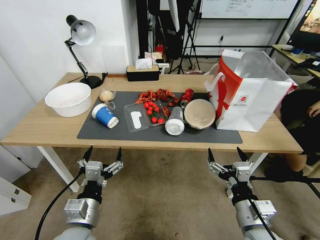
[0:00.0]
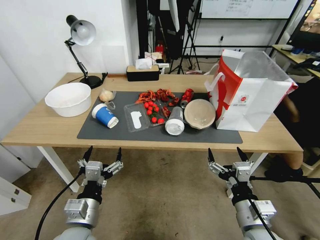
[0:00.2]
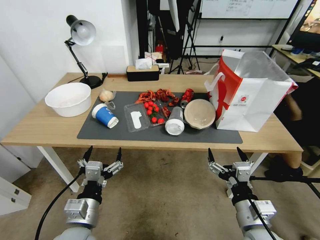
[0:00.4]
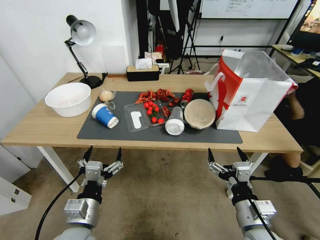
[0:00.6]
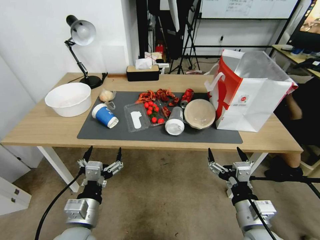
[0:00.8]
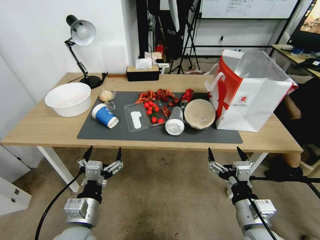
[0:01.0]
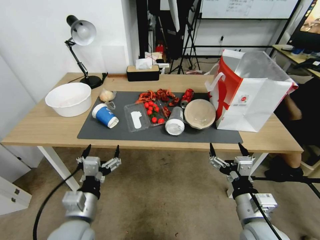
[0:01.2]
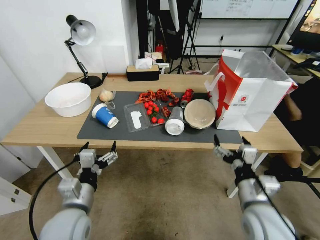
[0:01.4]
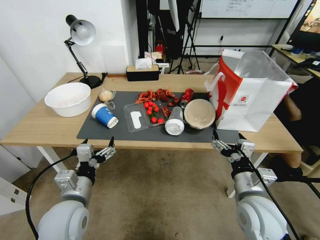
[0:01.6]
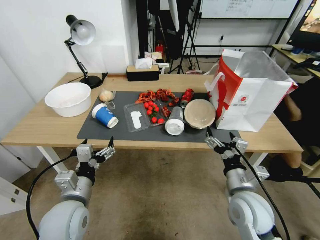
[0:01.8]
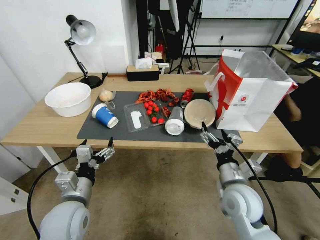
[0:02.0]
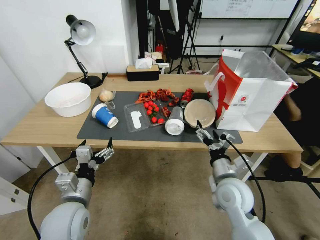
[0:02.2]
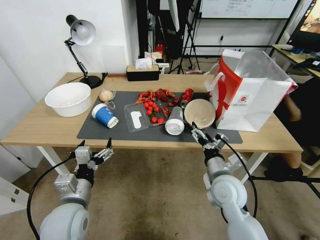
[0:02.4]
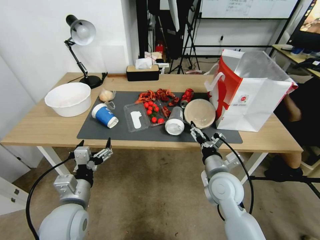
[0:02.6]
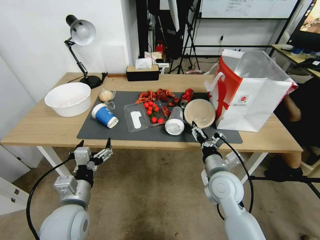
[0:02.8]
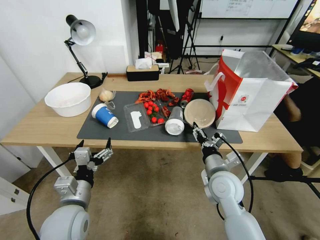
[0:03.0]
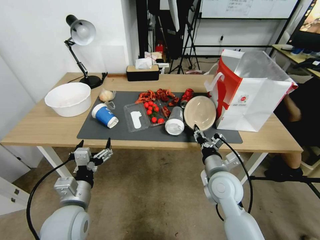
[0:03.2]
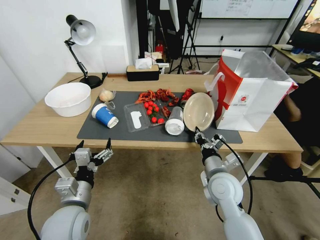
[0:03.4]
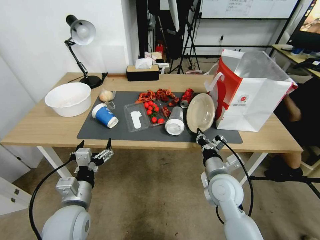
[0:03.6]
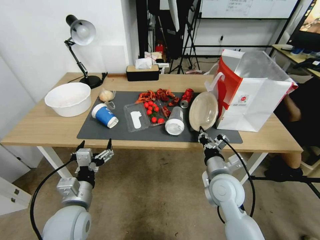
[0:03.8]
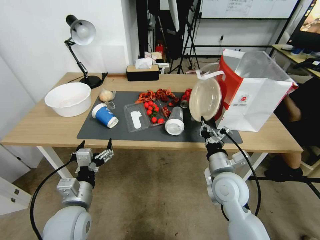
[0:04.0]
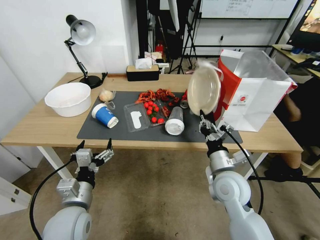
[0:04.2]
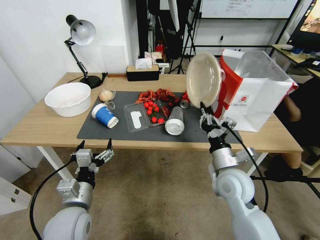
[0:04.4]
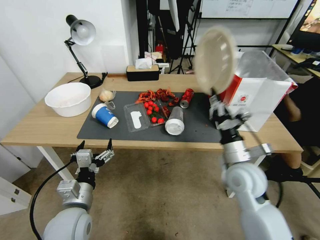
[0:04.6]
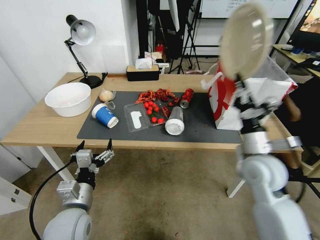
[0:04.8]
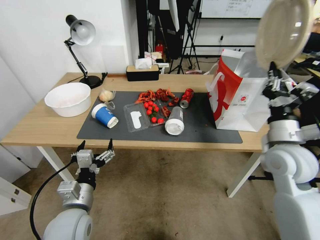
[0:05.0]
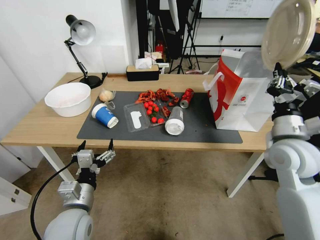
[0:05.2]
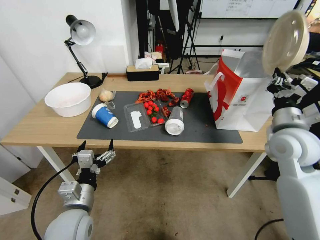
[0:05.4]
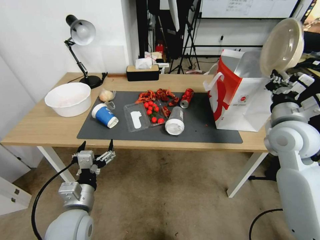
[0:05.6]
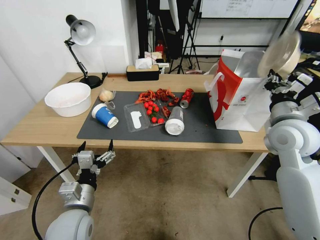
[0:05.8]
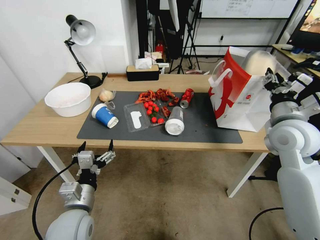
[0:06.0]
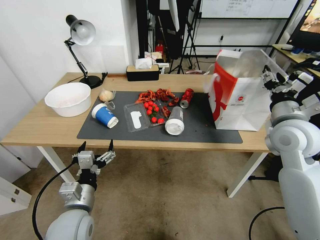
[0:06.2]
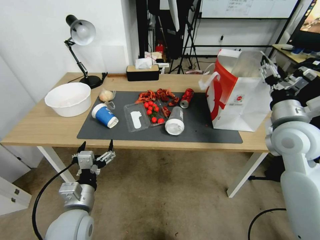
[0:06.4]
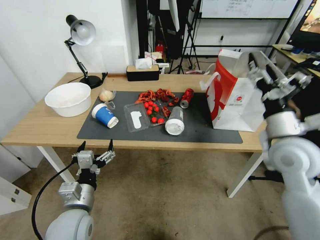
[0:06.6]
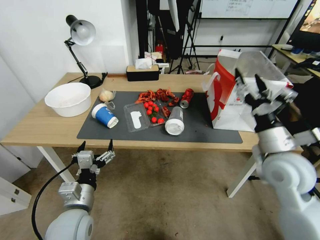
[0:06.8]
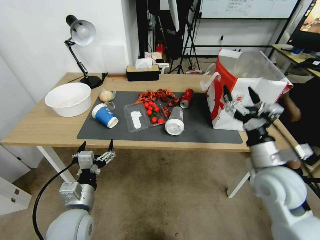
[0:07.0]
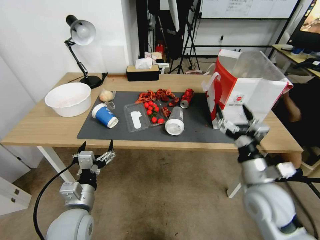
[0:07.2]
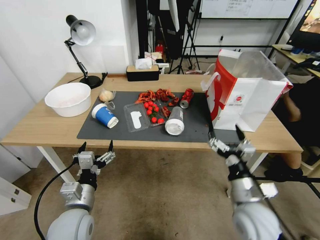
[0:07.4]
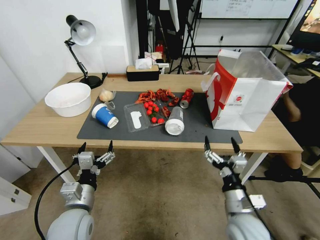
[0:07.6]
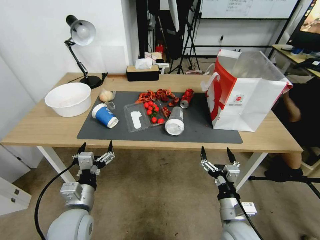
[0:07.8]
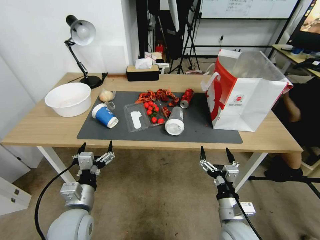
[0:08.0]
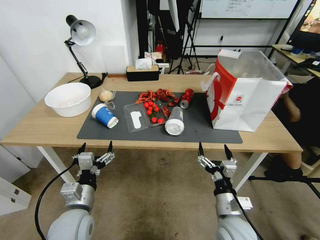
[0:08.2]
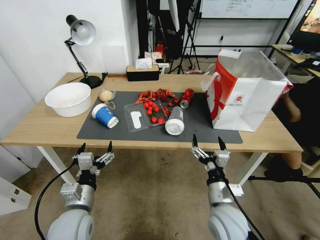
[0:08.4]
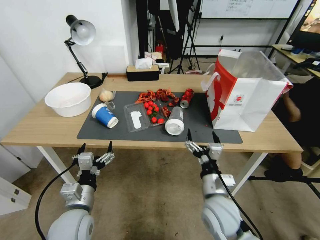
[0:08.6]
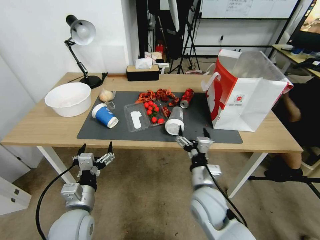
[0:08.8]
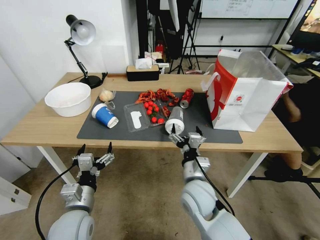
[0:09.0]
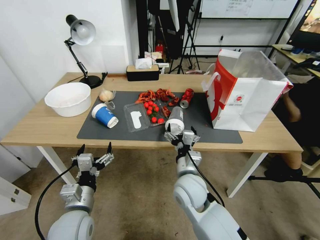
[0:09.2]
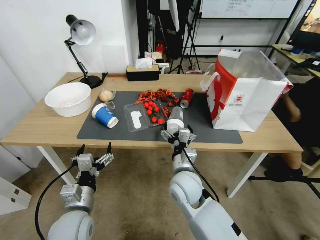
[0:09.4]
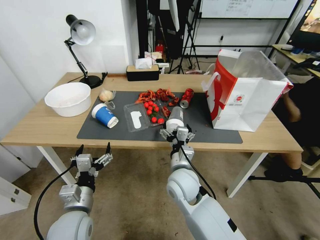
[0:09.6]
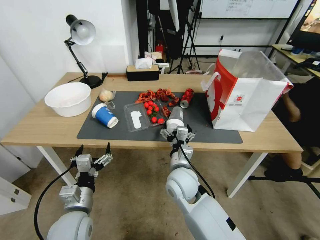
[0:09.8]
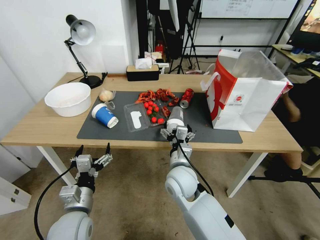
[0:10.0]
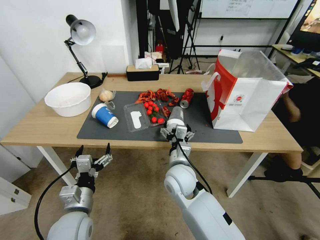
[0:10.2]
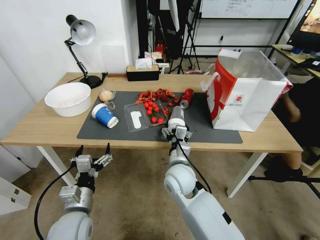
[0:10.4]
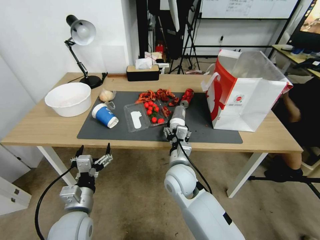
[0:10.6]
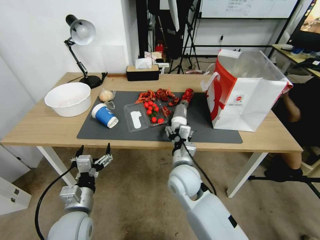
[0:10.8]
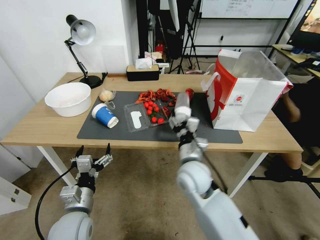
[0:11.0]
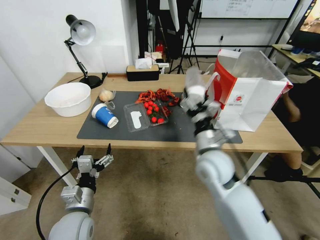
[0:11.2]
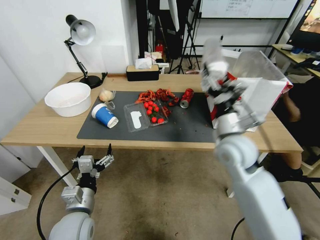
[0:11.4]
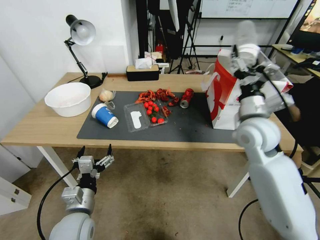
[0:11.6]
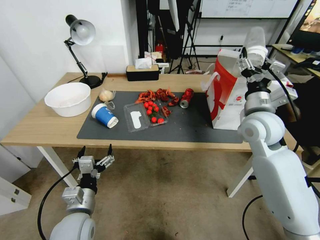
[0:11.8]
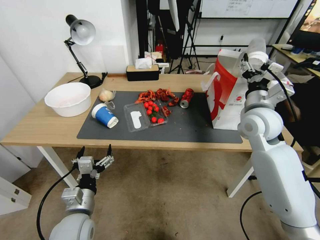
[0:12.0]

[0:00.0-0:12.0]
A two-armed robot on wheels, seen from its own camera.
0:01.6 to 0:03.0: The right gripper moves forward, roughly 10 cm, and closes its fingers.
0:03.0 to 0:04.4: The right gripper closes up.
0:04.4 to 0:06.0: The right gripper goes about 20 cm upward, to the right and forward.
0:06.0 to 0:07.6: The right gripper goes some 20 cm downward, backward and to the left, and opens.
0:07.6 to 0:09.0: The right gripper goes approximately 15 cm to the left.
0:09.0 to 0:10.4: The right gripper goes approximately 5 cm forward.
0:10.4 to 0:12.0: The right gripper shifts some 30 cm to the right, upward and forward.

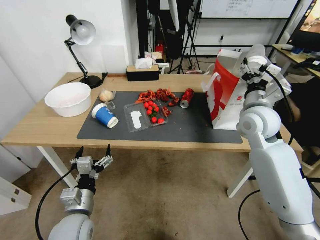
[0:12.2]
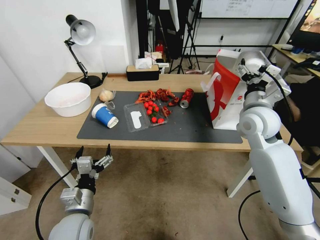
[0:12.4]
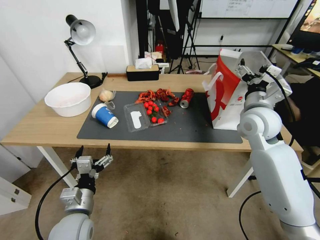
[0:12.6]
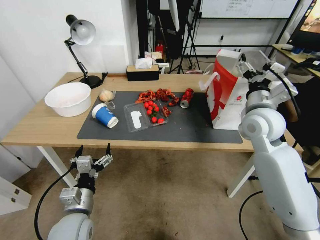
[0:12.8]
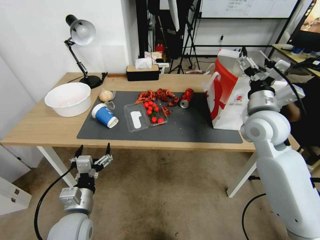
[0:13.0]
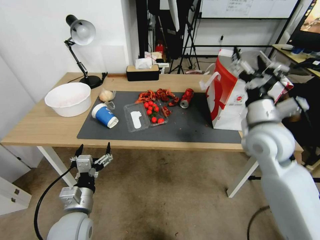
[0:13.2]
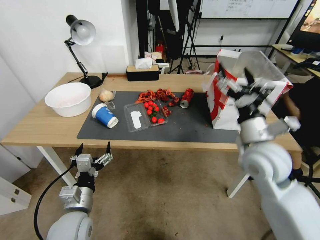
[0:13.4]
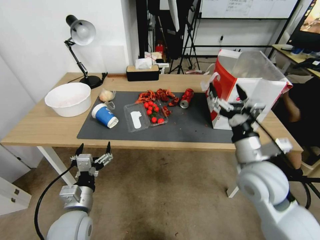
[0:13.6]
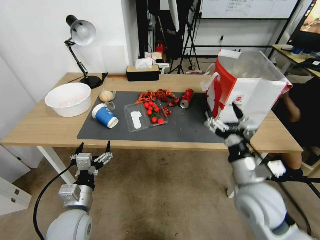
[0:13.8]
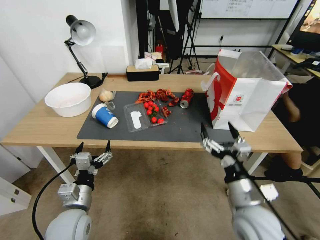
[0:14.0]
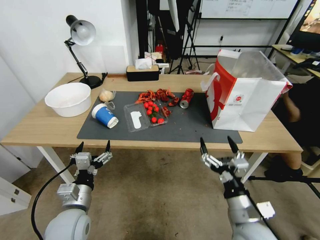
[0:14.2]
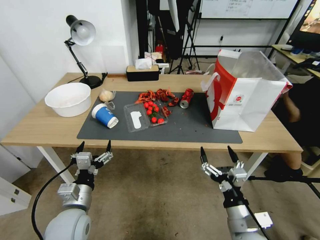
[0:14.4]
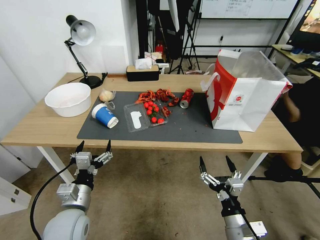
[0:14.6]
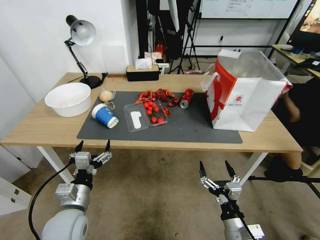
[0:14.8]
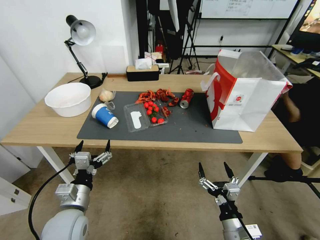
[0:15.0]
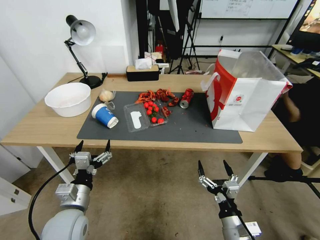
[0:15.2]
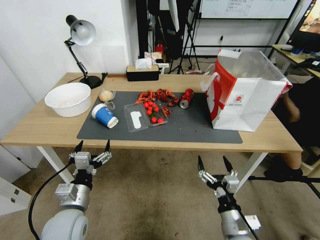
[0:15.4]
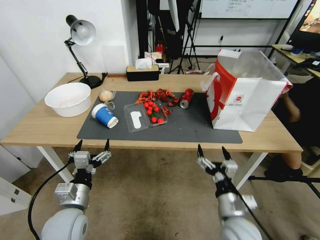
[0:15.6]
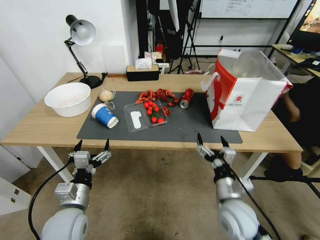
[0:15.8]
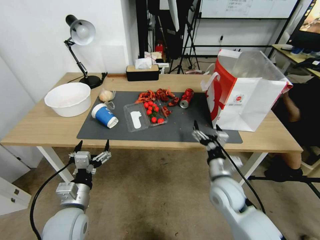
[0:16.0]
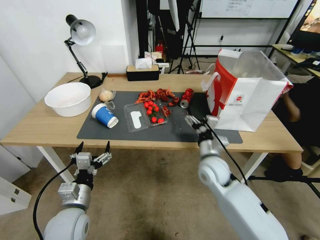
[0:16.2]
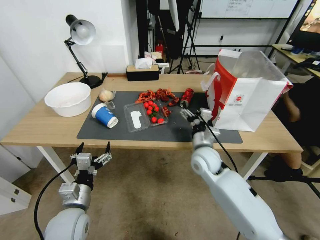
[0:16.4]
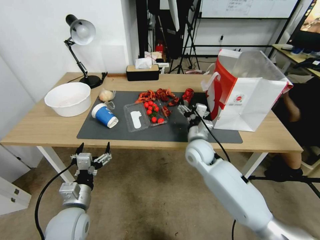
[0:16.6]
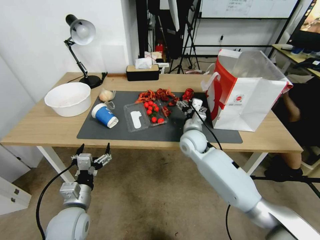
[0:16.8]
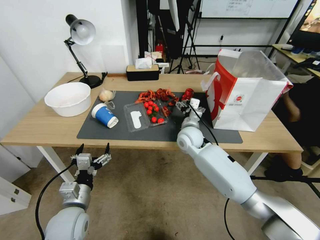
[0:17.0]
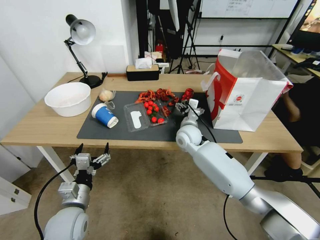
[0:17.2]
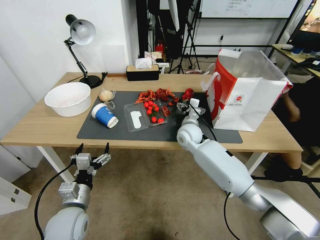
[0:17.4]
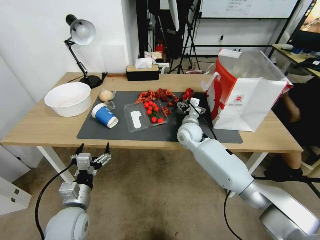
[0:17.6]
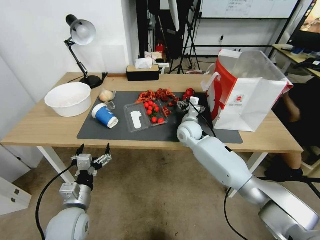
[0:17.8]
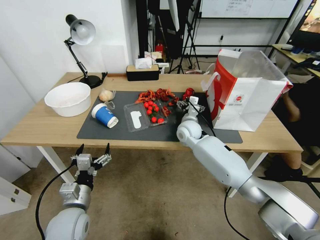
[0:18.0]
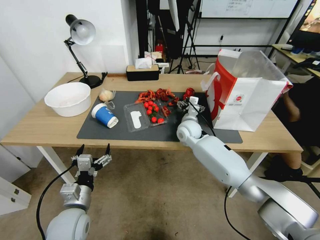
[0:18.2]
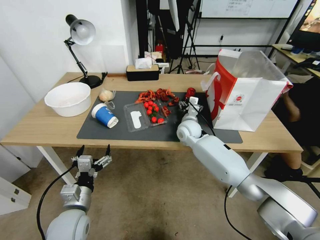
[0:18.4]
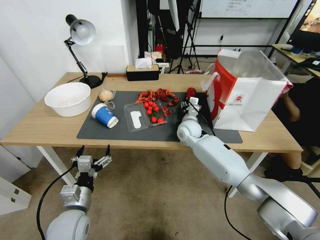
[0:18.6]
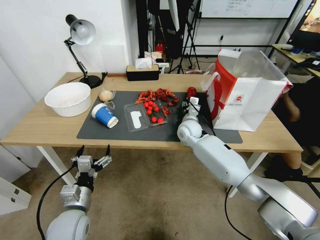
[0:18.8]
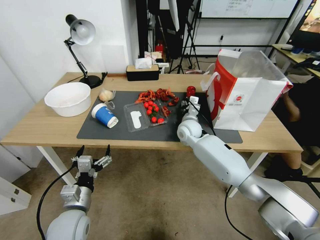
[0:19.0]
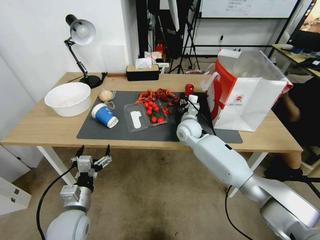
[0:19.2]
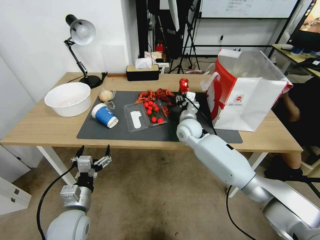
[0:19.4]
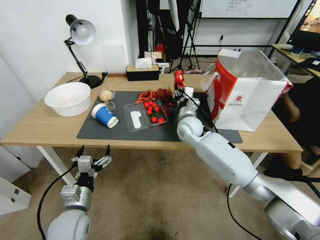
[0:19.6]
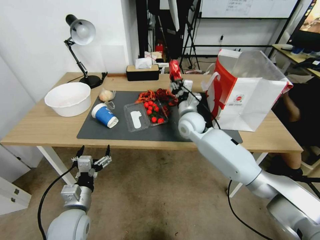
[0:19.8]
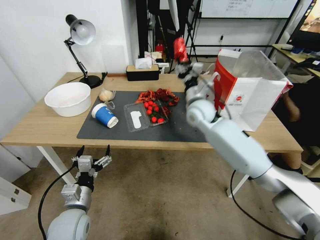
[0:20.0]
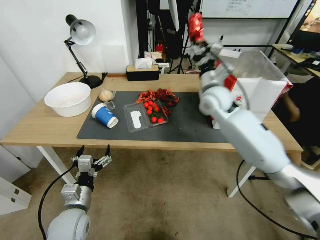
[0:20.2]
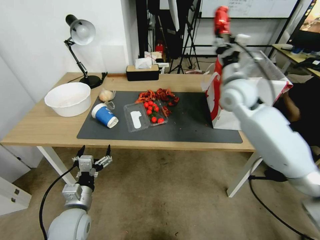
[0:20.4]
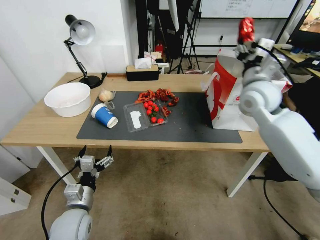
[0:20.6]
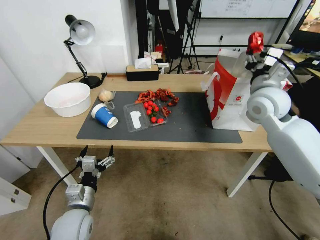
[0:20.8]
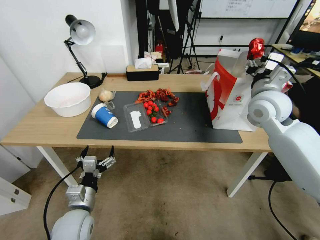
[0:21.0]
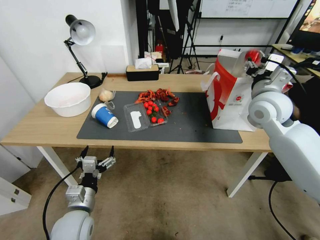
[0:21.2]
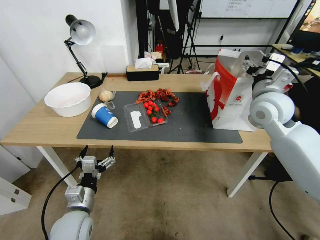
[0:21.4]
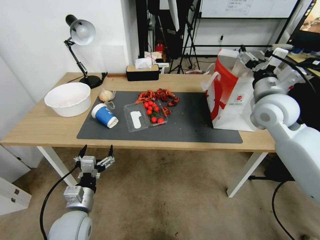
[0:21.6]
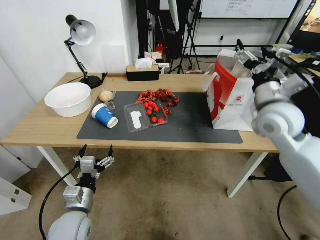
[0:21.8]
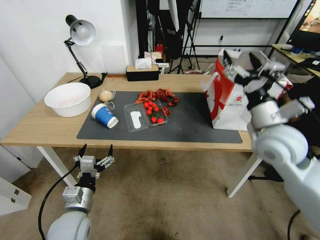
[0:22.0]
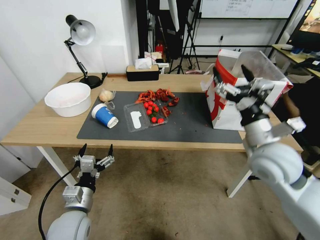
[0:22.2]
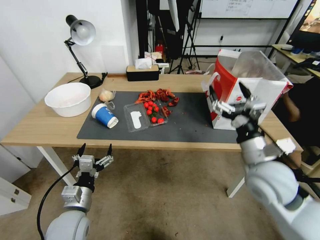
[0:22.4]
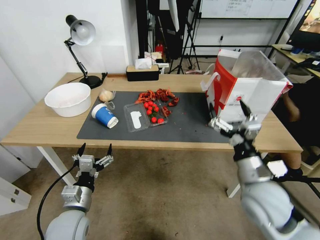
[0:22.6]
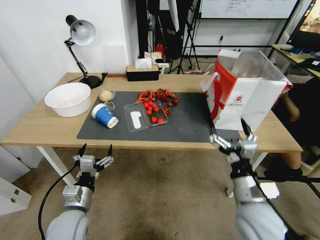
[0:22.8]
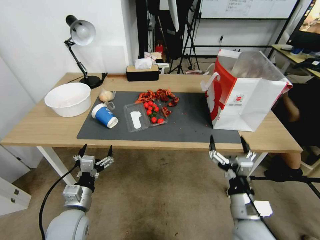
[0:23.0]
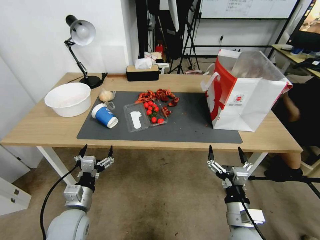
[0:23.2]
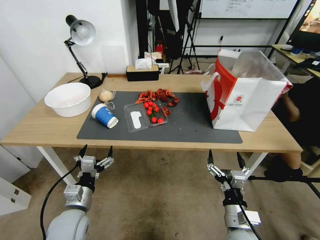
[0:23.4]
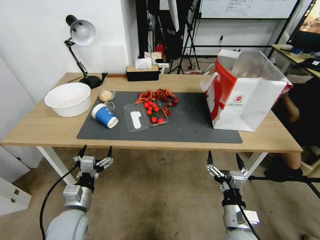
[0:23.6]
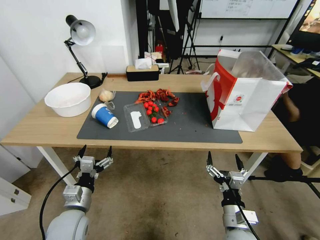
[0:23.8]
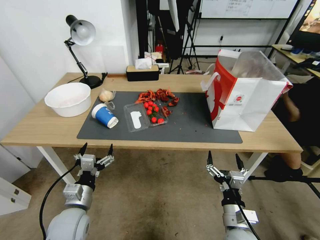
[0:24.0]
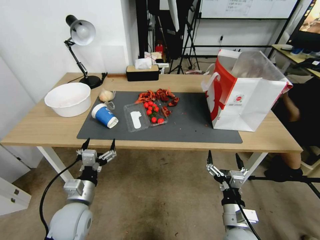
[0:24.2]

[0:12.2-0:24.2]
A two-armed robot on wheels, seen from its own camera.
0:12.2 to 0:13.8: The right gripper heads backward and downward, covering approximately 20 cm.
0:13.8 to 0:15.2: The right gripper travels downward and backward by about 20 cm.
0:15.2 to 0:16.6: The right gripper shifts some 30 cm forward.
0:16.6 to 0:18.2: The right gripper moves forward, about 10 cm.
0:18.2 to 0:19.8: The right gripper closes its fingers.
0:19.8 to 0:21.2: The right gripper travels to the right and upward by about 25 cm.
0:21.2 to 0:22.6: The right gripper shifts roughly 25 cm backward and downward, and opens up.
0:22.6 to 0:24.2: The right gripper goes some 15 cm downward and backward.
